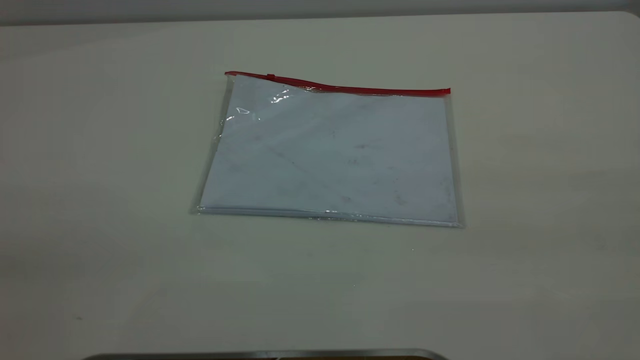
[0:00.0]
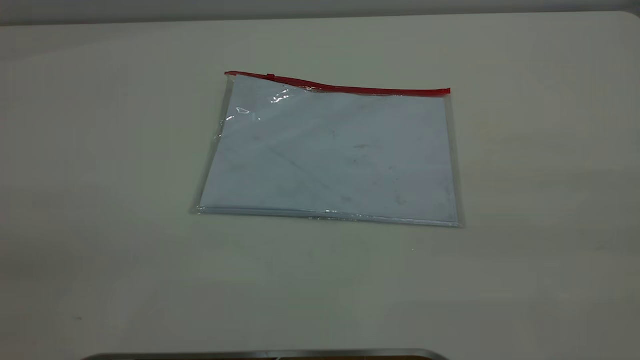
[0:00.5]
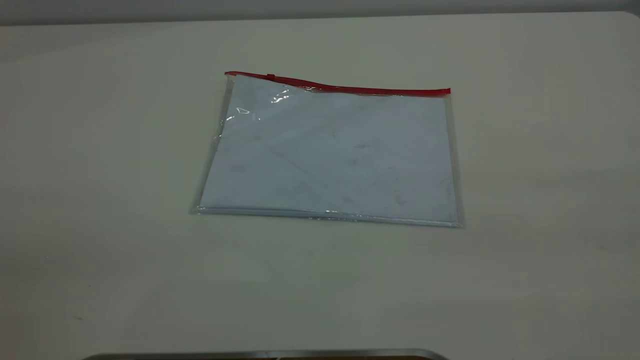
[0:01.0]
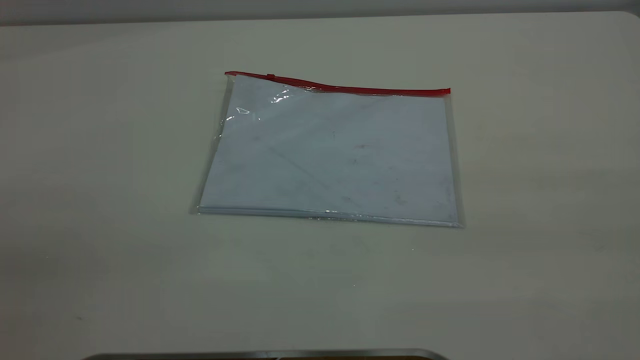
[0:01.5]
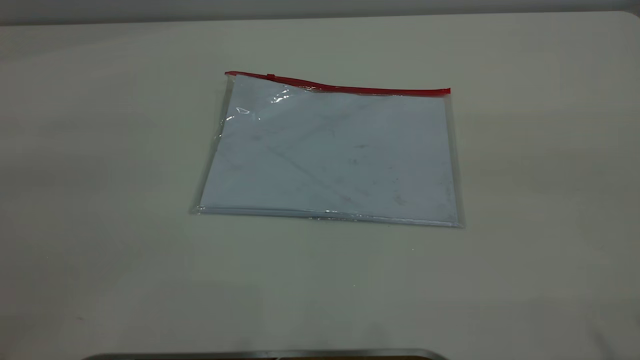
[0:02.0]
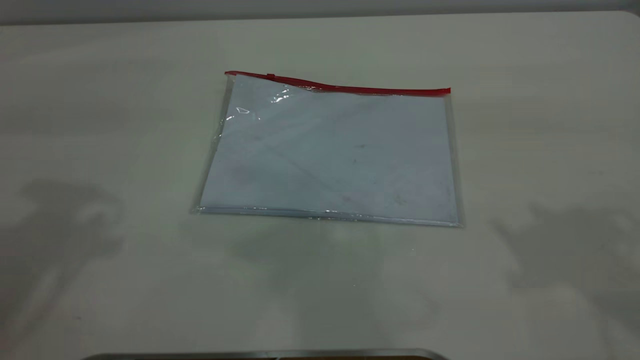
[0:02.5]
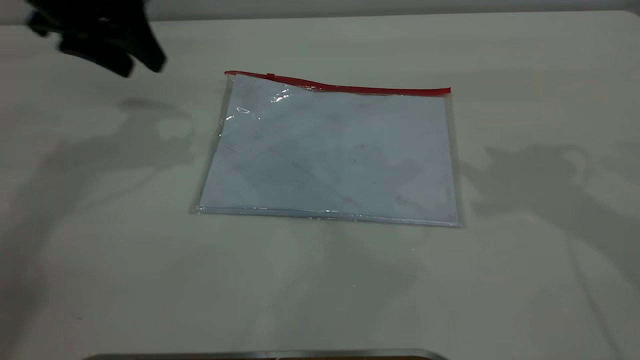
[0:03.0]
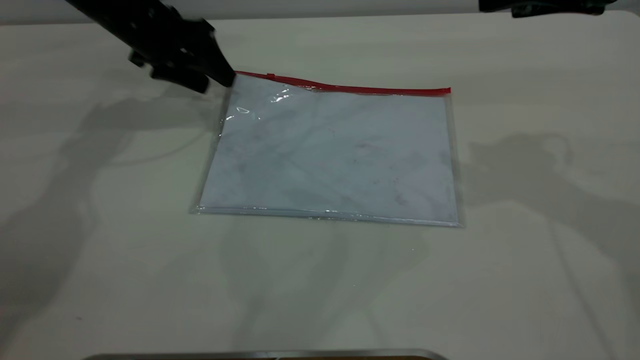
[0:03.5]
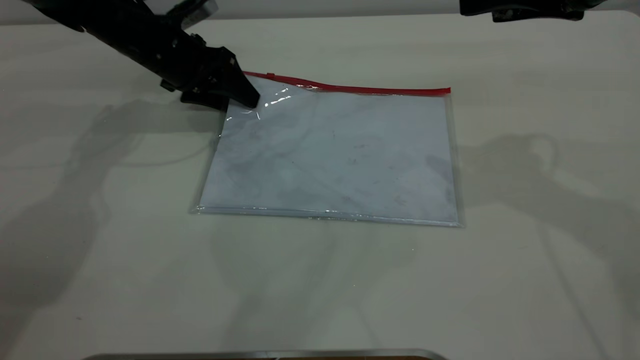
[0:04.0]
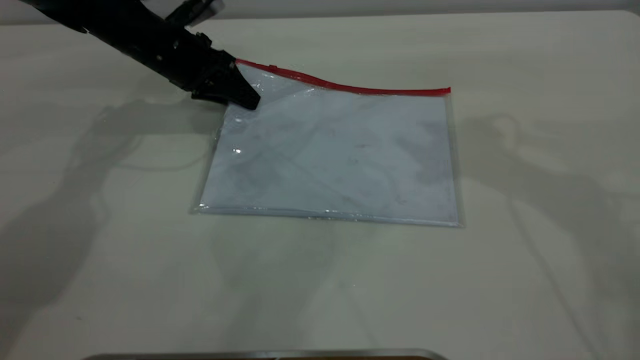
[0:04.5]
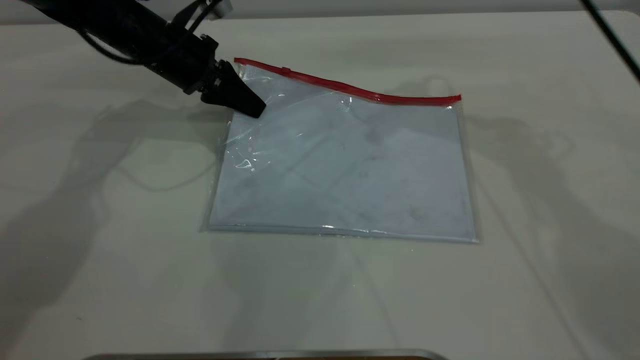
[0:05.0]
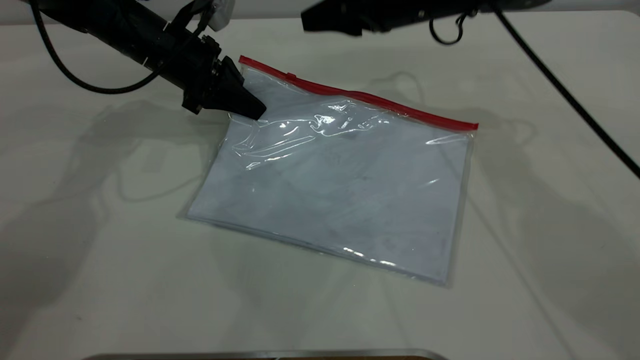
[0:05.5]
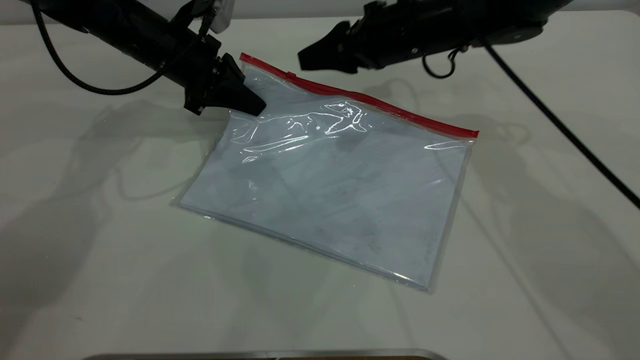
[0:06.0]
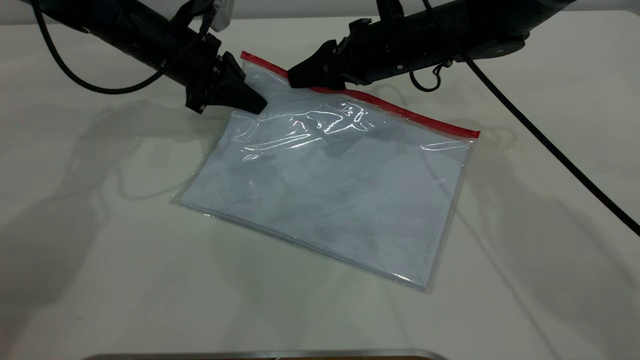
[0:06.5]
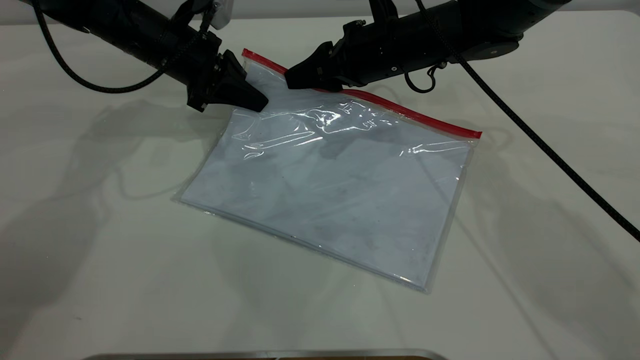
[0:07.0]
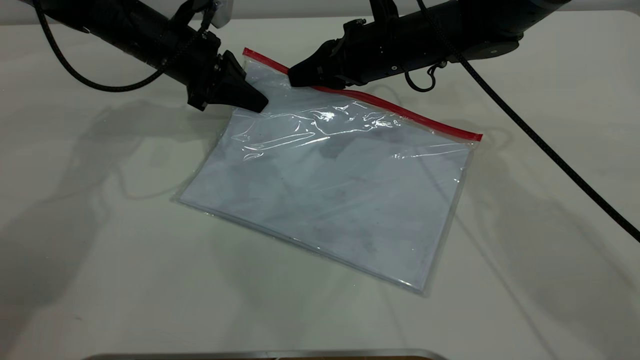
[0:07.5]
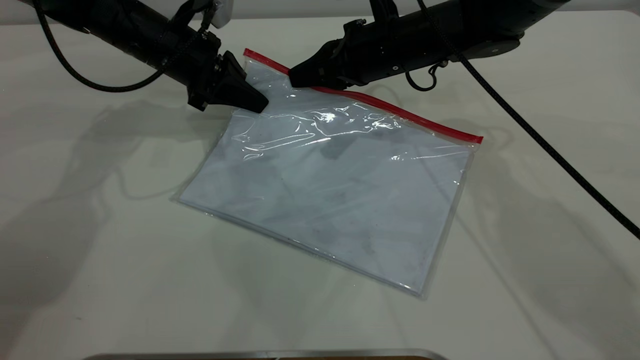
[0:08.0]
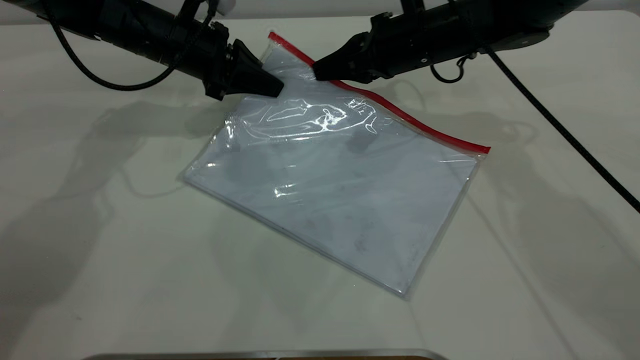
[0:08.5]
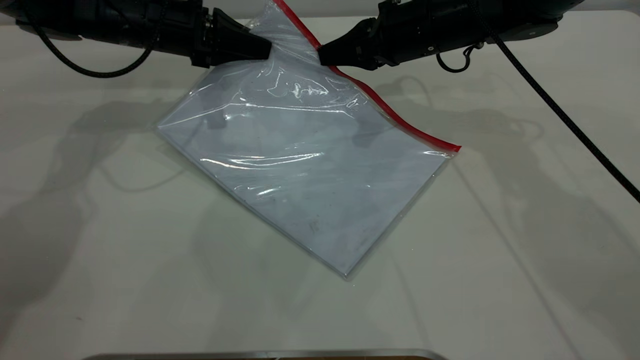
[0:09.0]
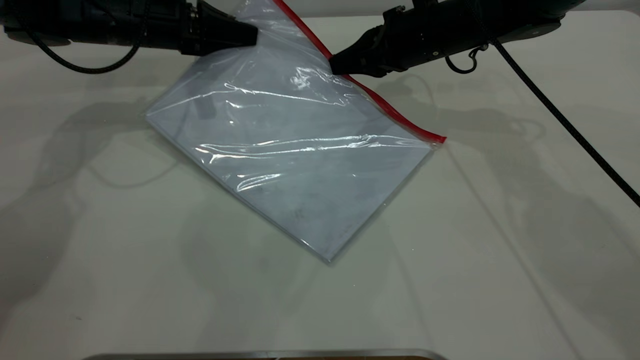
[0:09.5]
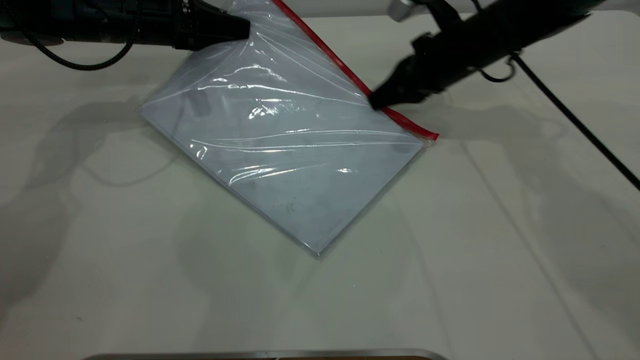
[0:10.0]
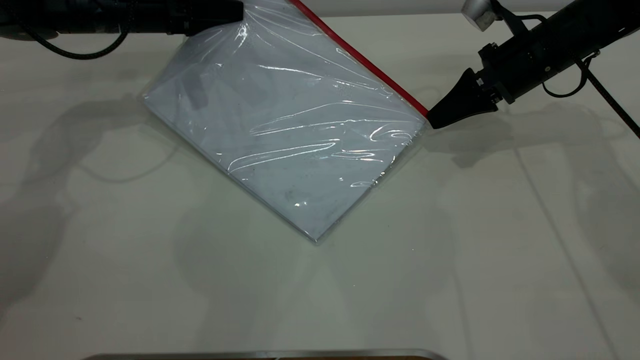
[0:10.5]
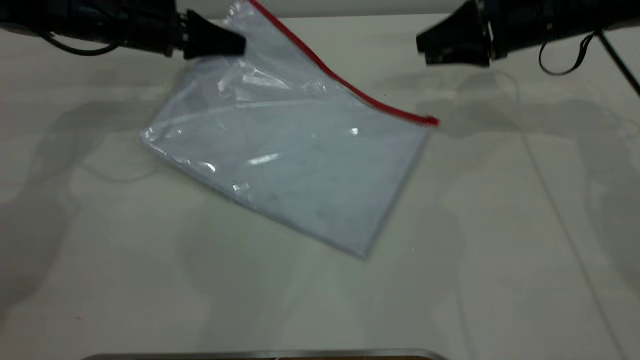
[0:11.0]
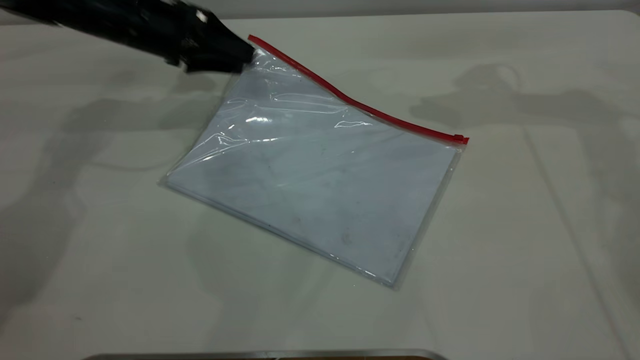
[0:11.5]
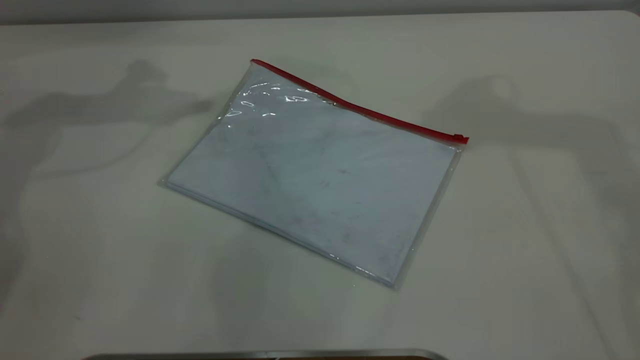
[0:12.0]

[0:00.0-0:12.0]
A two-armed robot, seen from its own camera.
Step, 0:00.0 to 0:05.0: Pick up the transparent plastic bag with the left gripper.
Step, 0:05.5 to 0:10.5: Pulling up the zipper on the transparent plastic bag with the right gripper to close it.
Step, 0:11.0 to 0:11.5: Place the transparent plastic bag.
0:02.0 to 0:04.0: The left gripper travels forward and downward by some 50 cm. The right gripper heads forward and downward, covering roughly 30 cm.
0:04.0 to 0:06.0: The left gripper closes up, while the right gripper travels downward, to the left and forward by some 25 cm.
0:06.0 to 0:08.0: The right gripper closes up.
0:08.0 to 0:10.0: The right gripper shifts approximately 10 cm to the right, while the left gripper changes place by about 5 cm.
0:10.0 to 0:12.0: The left gripper travels upward by some 20 cm, and opens its fingers, while the right gripper moves upward, about 35 cm, and opens.
